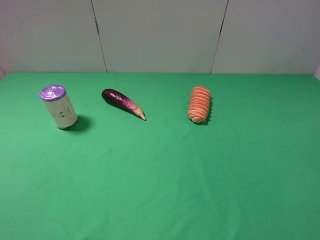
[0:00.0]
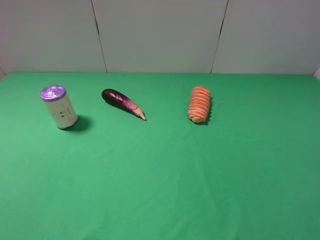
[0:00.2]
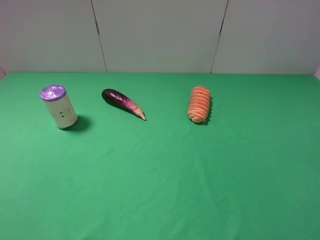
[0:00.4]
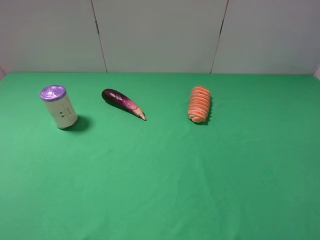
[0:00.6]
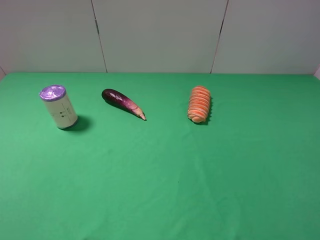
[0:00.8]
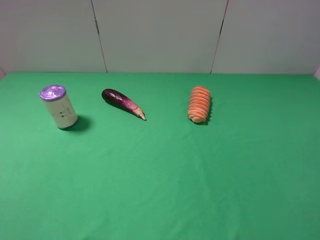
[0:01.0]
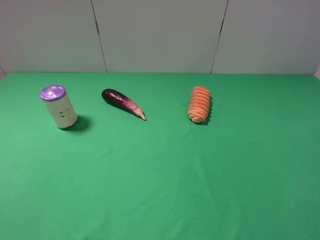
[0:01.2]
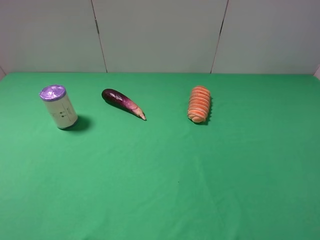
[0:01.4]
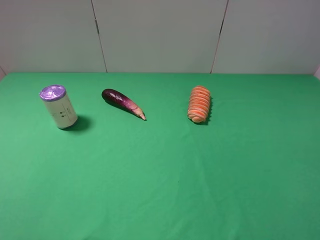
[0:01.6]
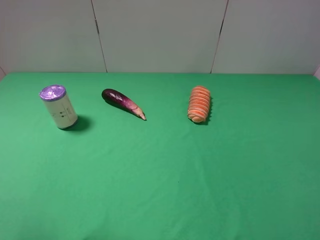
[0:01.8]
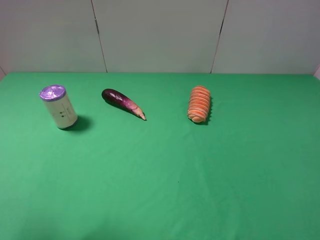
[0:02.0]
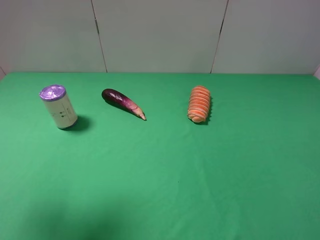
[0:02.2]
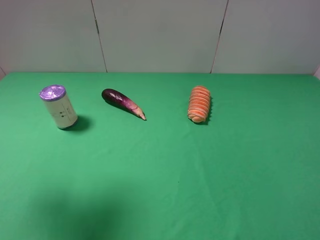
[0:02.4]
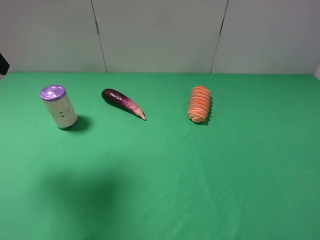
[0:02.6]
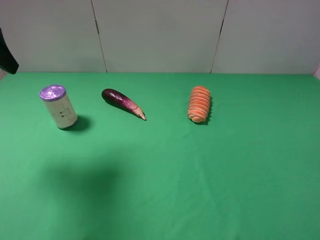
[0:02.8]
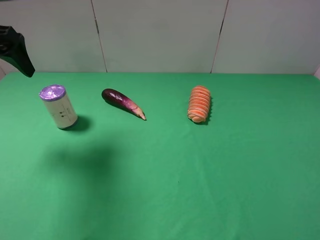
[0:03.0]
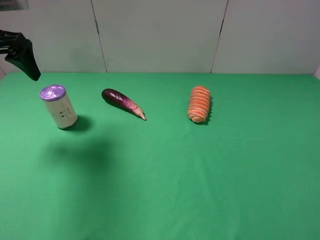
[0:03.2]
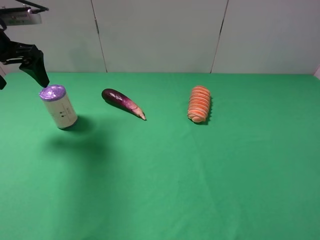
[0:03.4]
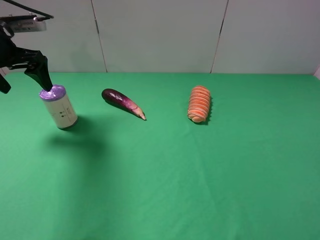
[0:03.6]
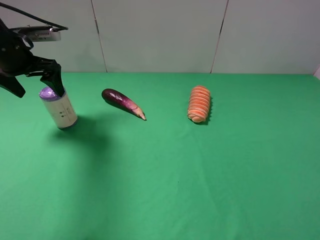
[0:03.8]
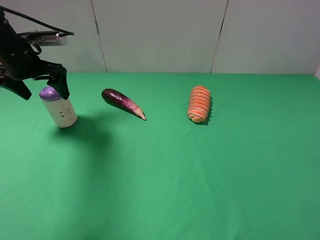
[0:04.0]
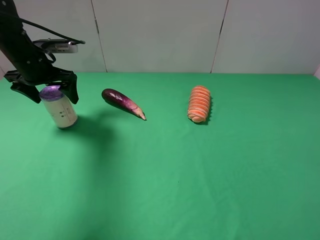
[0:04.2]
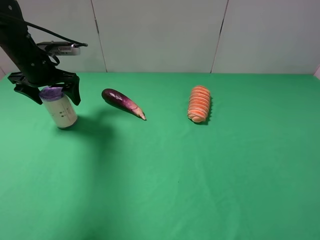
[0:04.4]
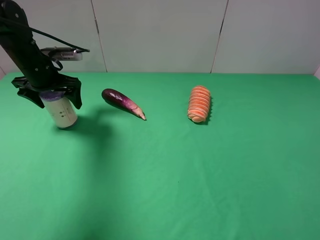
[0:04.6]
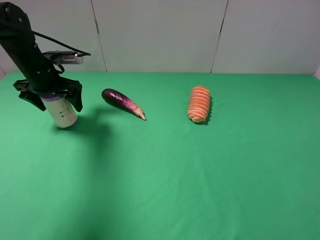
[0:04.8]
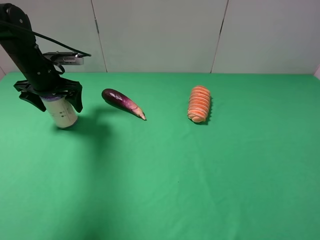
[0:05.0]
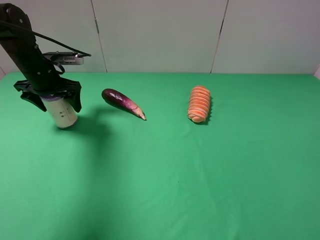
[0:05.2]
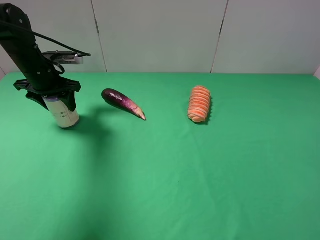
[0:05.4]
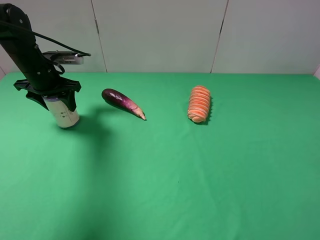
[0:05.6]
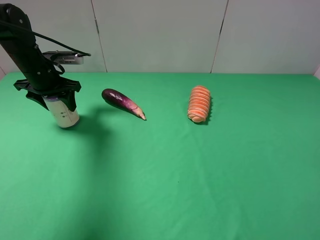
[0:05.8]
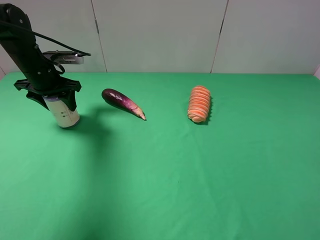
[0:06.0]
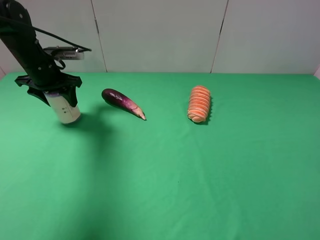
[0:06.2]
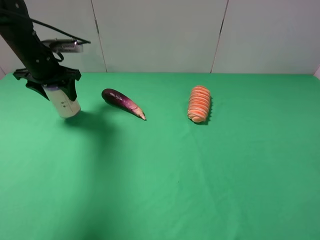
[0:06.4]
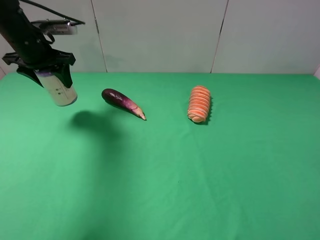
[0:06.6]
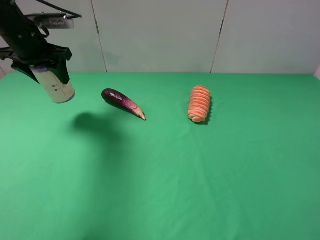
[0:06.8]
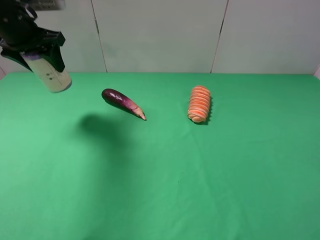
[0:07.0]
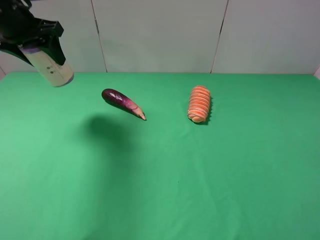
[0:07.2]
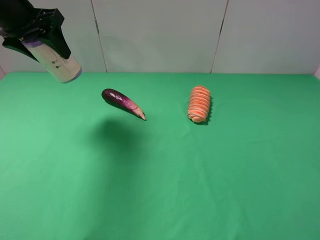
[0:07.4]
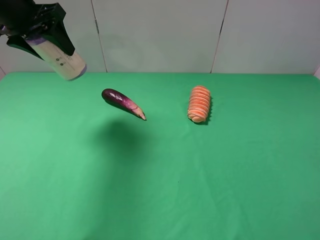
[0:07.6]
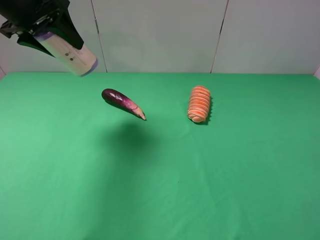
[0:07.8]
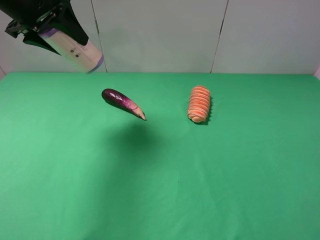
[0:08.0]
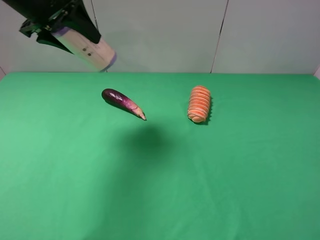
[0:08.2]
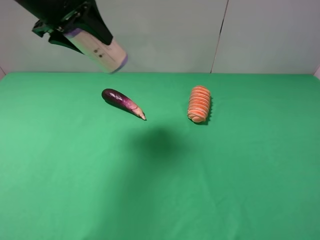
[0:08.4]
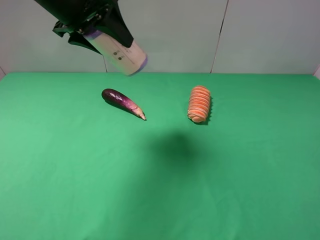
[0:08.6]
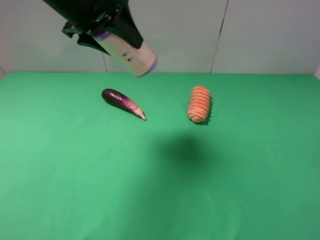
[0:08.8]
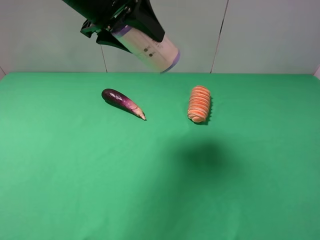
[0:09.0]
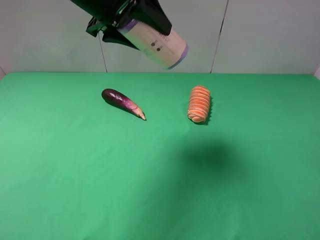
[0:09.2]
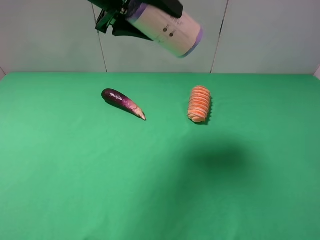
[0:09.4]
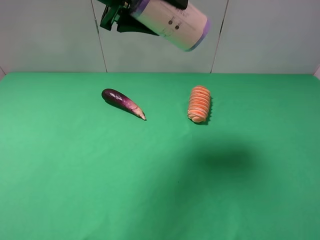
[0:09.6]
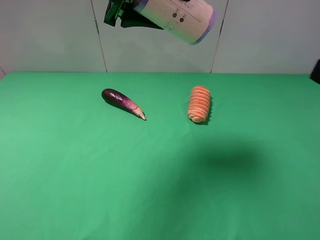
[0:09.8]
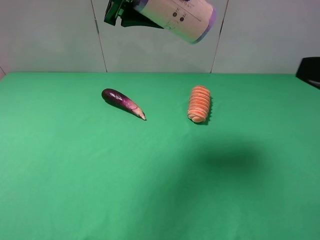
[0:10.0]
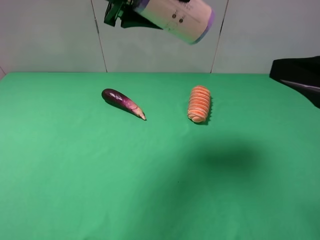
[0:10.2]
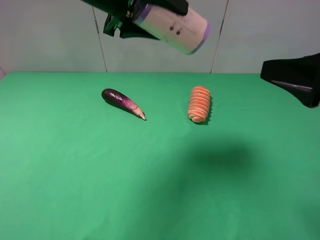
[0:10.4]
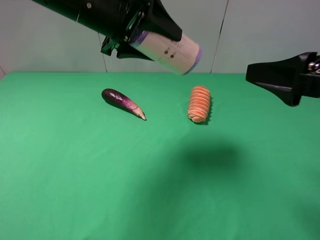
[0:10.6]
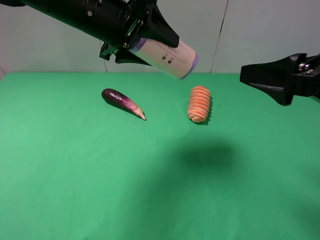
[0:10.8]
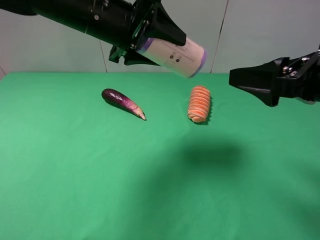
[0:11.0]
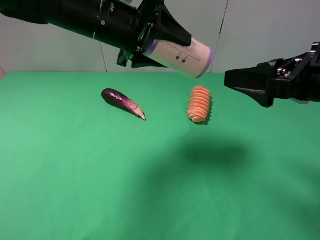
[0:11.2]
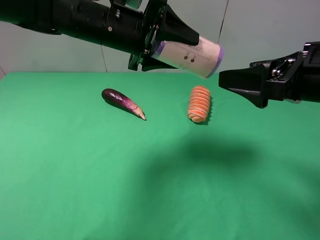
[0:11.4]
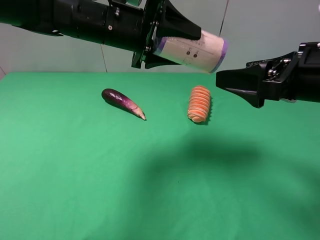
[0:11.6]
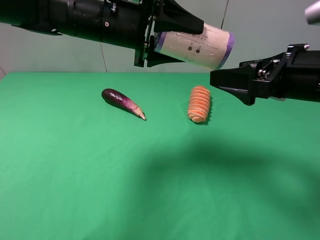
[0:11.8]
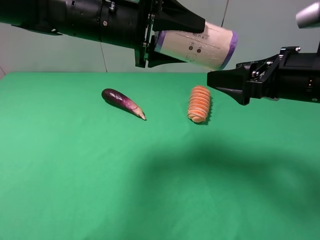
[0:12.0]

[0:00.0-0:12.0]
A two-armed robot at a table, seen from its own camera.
Task of the whole recording: use the left gripper to pick up the item and transfer it from the left gripper to the right gripper.
Step, 0:00.0 to 0:05.8: Use the left gripper to grab the purple garbage bag on the left side of the table.
0:01.6 to 0:03.0: The left gripper travels forward by approximately 25 cm.
0:03.0 to 0:04.4: The left gripper shifts approximately 15 cm downward and forward.
0:04.4 to 0:06.0: The left gripper closes.
0:06.0 to 0:07.6: The left gripper is displaced upward by about 15 cm.
0:07.6 to 0:09.0: The left gripper heads to the right, covering about 15 cm.
0:09.0 to 0:10.4: The right gripper moves forward, some 10 cm.
0:10.4 to 0:12.0: The left gripper travels downward by roughly 5 cm, while the right gripper is displaced forward by about 10 cm.

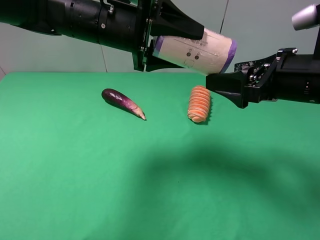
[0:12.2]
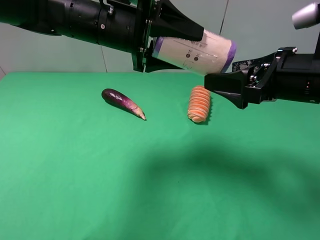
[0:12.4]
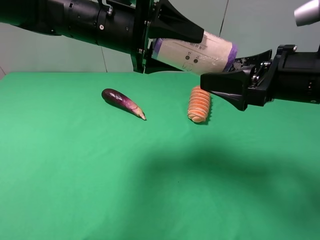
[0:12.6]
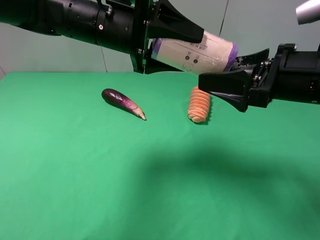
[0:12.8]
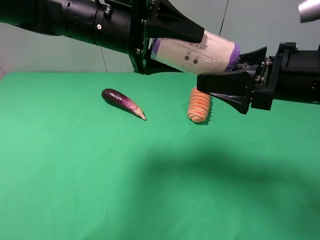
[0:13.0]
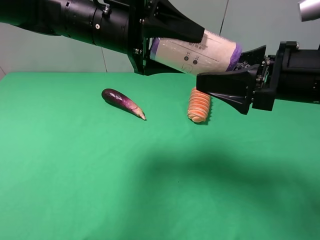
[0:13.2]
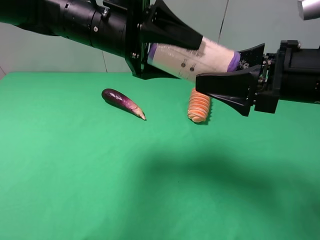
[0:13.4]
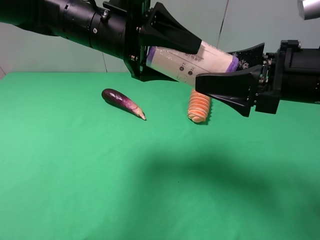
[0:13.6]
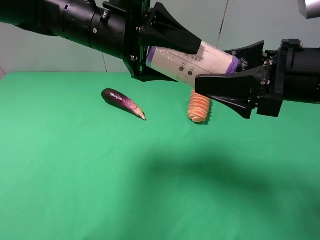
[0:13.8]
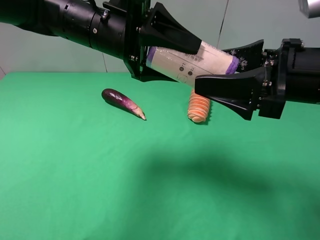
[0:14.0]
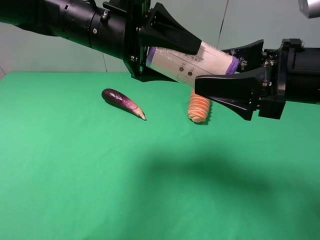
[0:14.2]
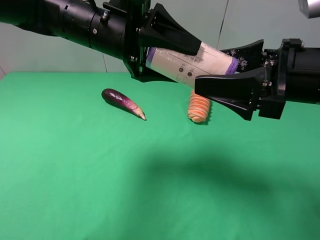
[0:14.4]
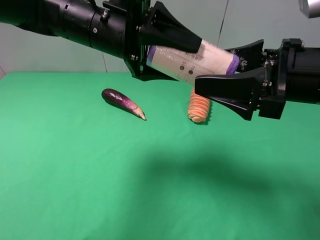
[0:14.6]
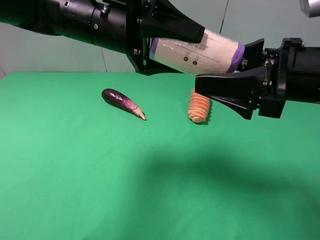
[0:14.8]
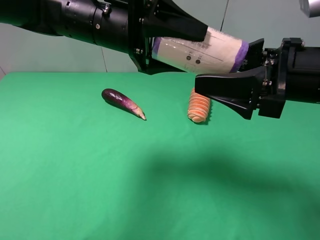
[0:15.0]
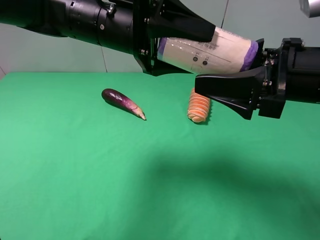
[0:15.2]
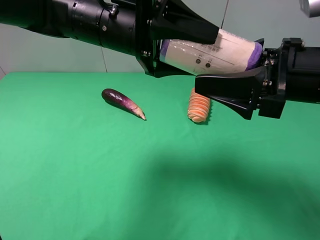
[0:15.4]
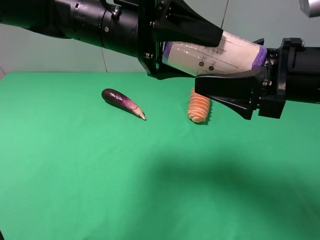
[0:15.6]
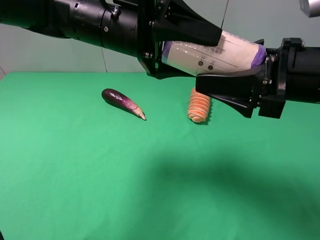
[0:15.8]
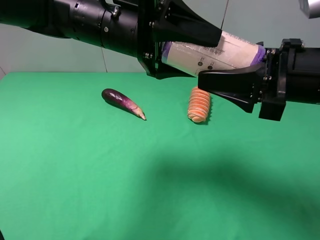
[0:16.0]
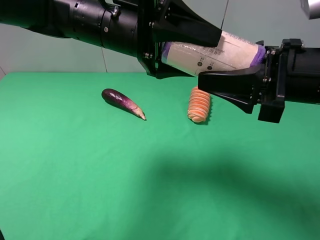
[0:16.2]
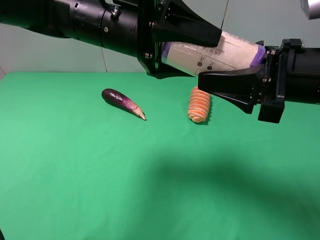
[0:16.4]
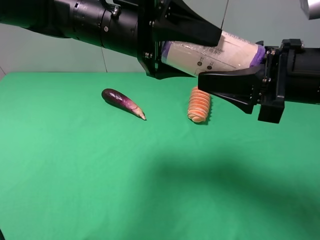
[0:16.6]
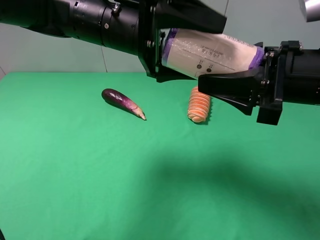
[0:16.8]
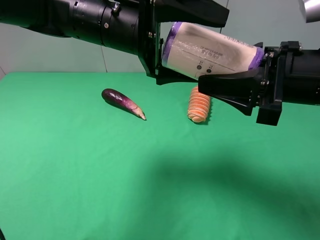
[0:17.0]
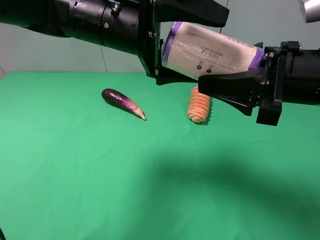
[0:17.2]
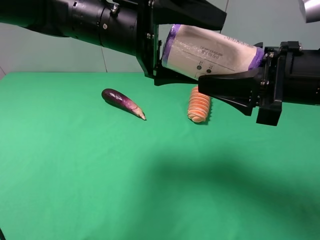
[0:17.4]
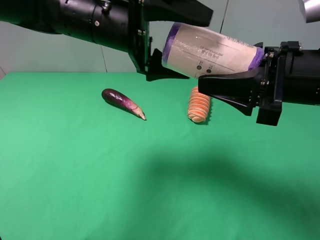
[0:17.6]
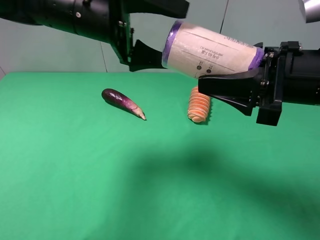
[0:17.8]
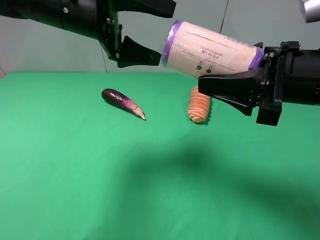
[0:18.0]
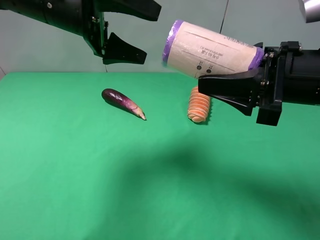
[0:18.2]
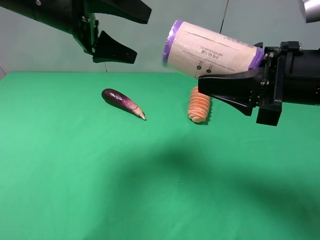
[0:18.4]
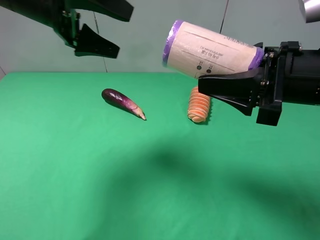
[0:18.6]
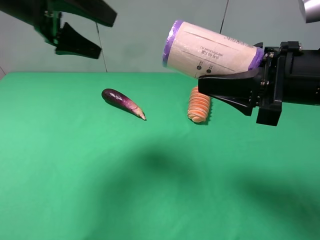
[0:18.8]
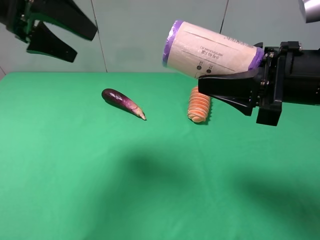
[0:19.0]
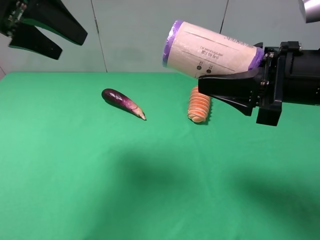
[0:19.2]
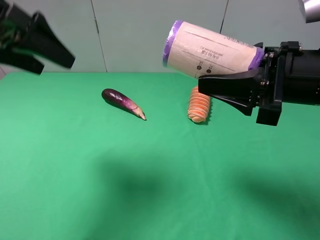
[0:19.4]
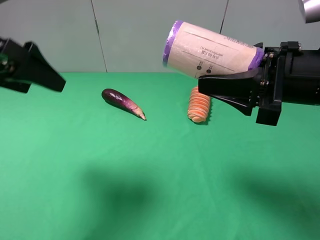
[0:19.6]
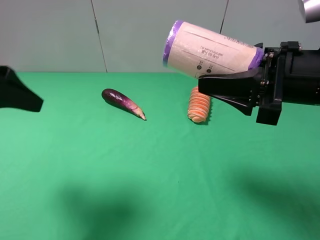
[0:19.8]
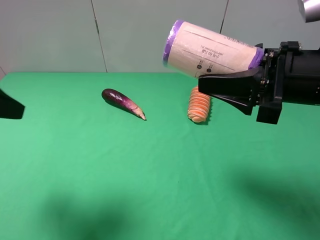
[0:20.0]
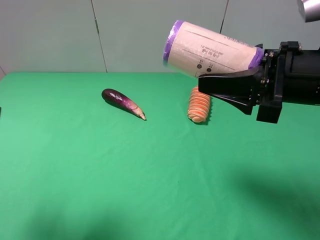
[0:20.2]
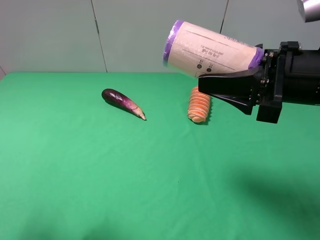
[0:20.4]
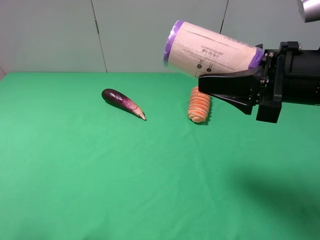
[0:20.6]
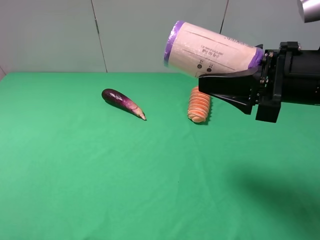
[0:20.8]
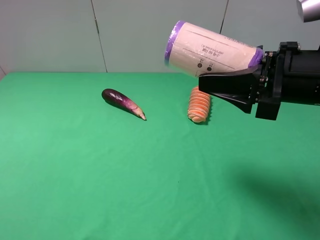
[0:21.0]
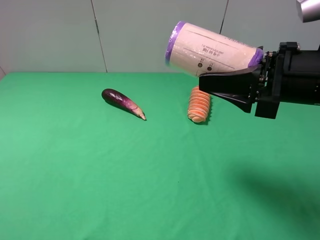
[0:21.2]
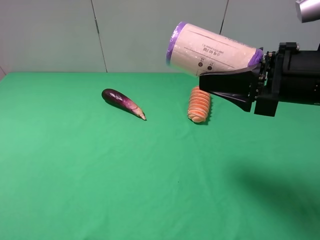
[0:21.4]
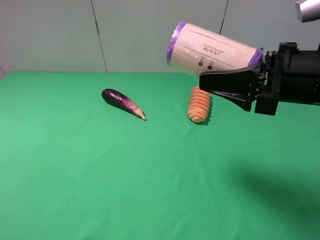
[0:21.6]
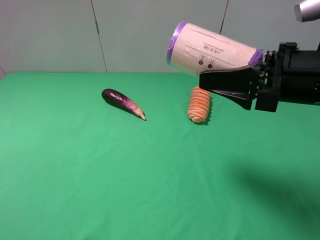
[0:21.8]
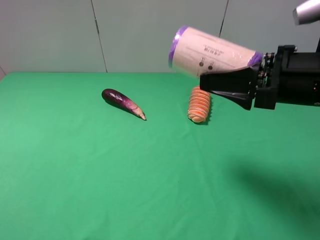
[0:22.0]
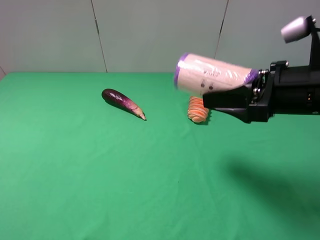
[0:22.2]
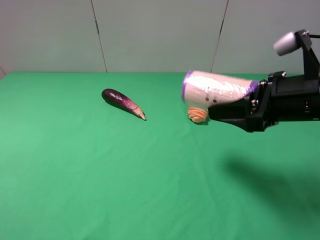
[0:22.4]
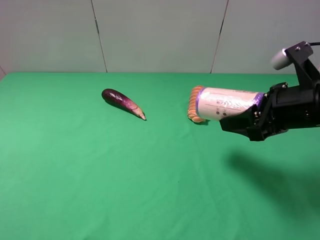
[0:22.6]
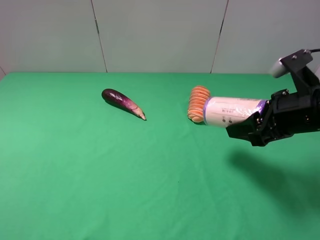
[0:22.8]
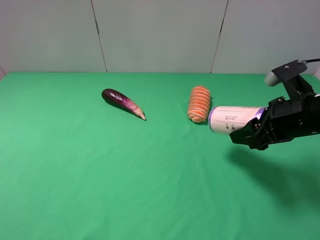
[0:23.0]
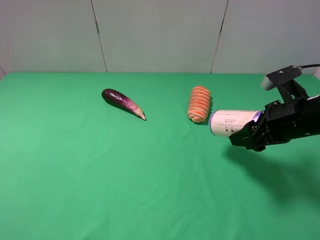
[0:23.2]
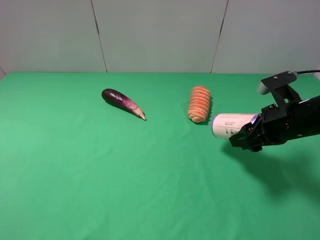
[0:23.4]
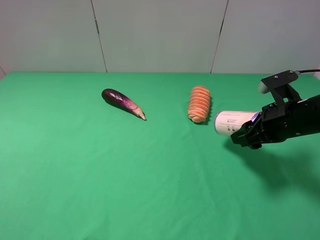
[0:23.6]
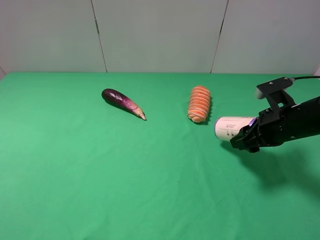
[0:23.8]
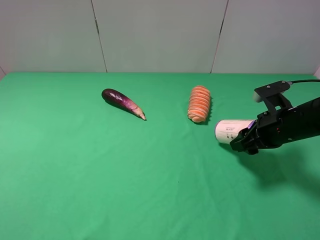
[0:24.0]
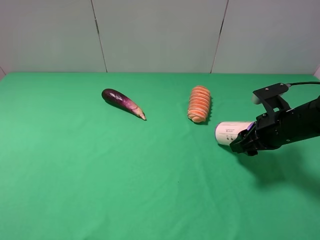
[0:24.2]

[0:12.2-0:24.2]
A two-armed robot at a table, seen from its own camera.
Task of the whole recording: use the left gripper to pick up the item and transfer it from the left gripper to the right gripper.
Step, 0:12.2 to 0:17.8: Pass the purple garbage bag to the right gripper.
0:13.8 to 0:15.2: The grippers make only small movements.
0:15.2 to 0:16.6: The right gripper closes.
0:16.6 to 0:18.2: The left gripper moves to the left, some 10 cm, and opens its fingers.
0:18.2 to 0:19.8: The left gripper shifts approximately 20 cm backward and to the left.
0:19.8 to 0:21.2: The left gripper goes some 15 cm backward.
0:21.2 to 0:22.6: The right gripper changes place by roughly 5 cm.
0:22.6 to 0:24.2: The right gripper travels downward by some 10 cm.
